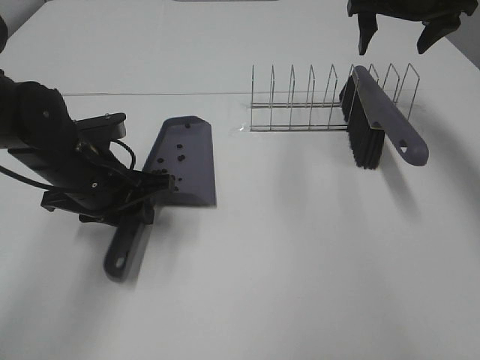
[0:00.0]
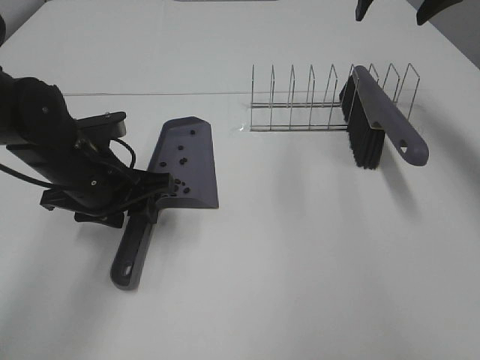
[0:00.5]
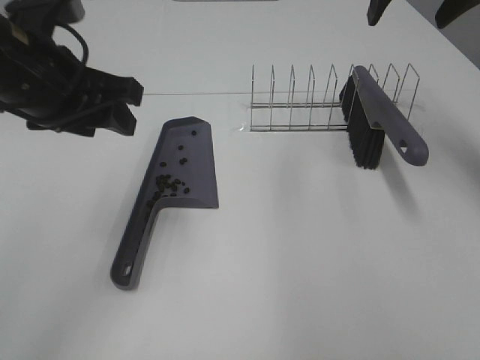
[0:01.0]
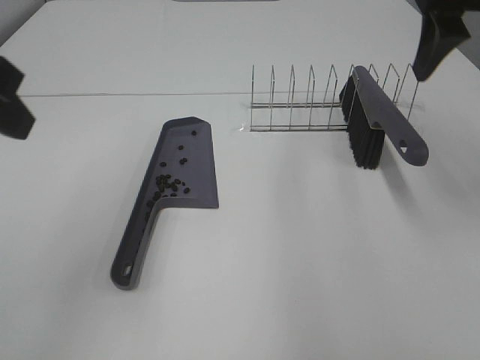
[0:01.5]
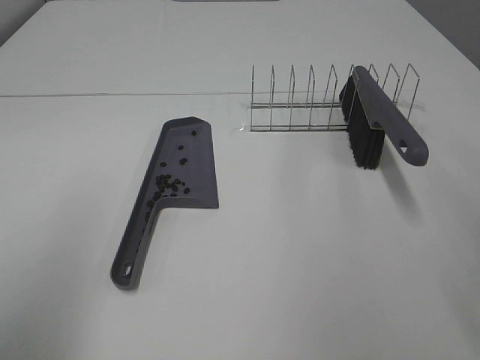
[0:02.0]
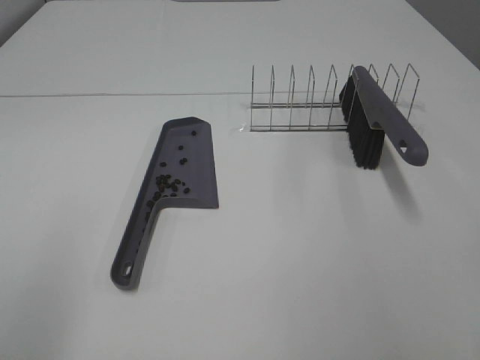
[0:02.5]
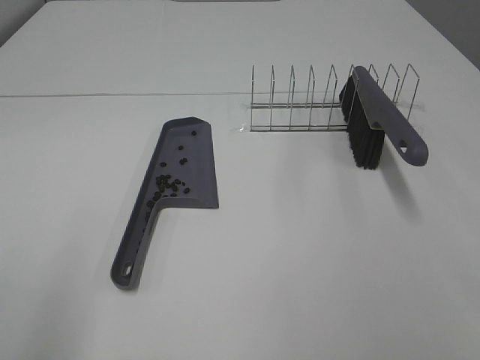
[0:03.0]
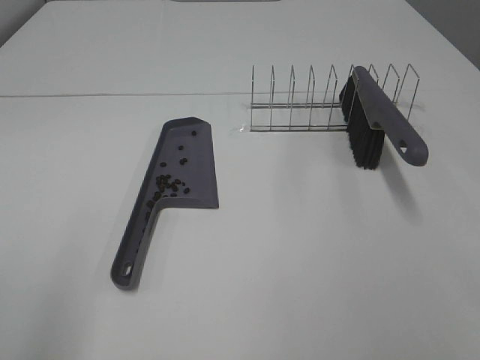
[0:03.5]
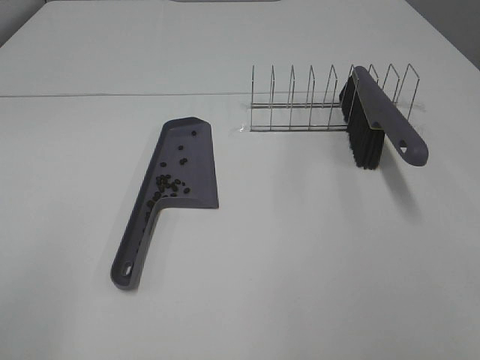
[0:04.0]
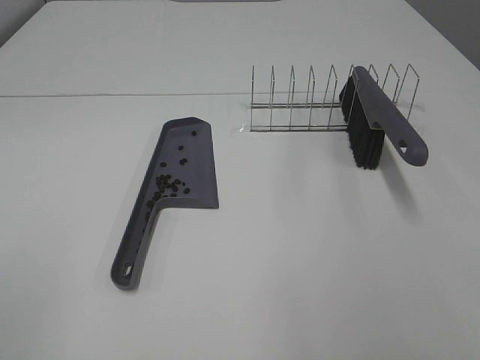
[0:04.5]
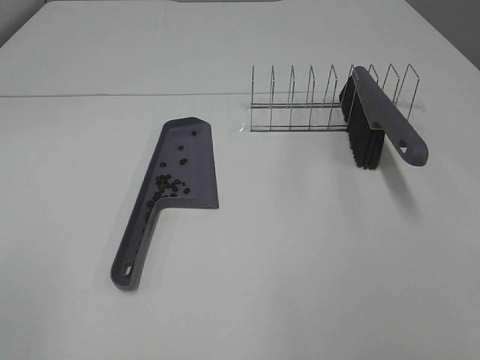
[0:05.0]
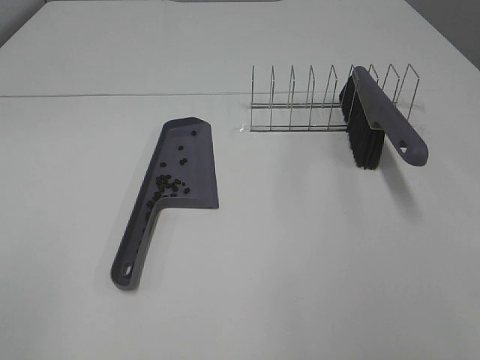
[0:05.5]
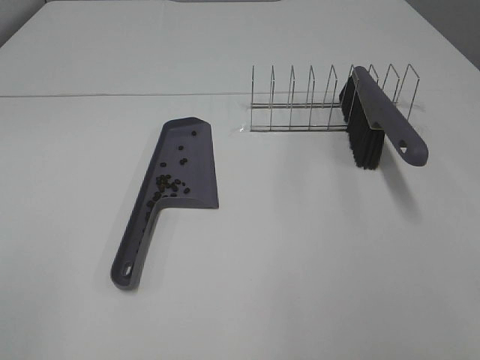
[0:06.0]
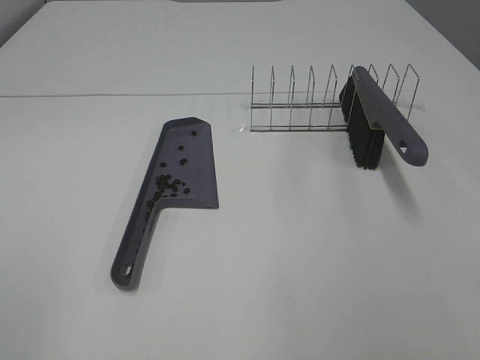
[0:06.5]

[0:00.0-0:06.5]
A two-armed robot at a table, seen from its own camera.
Task of the whole recording: Sweep Coffee Bean.
0:00.0 to 0:02.0: The right gripper goes some 30 cm backward. The left gripper shifts roughly 30 cm backward, upward and to the left.
0:02.0 to 0:04.5: The left gripper is displaced backward by approximately 10 cm.

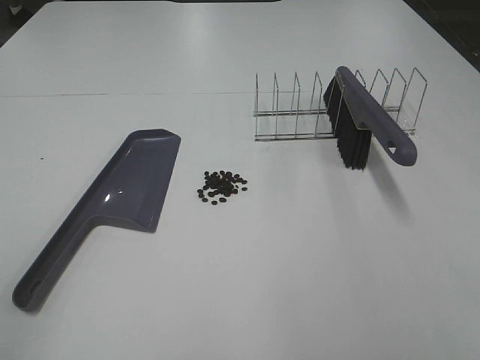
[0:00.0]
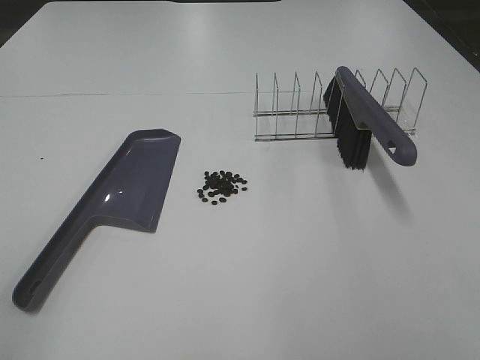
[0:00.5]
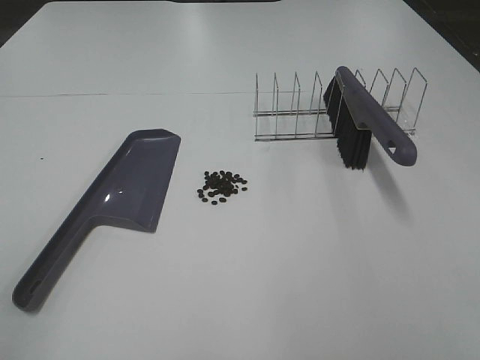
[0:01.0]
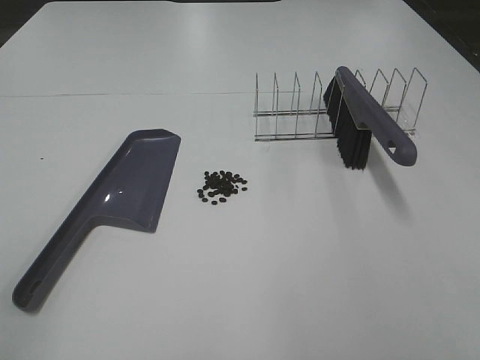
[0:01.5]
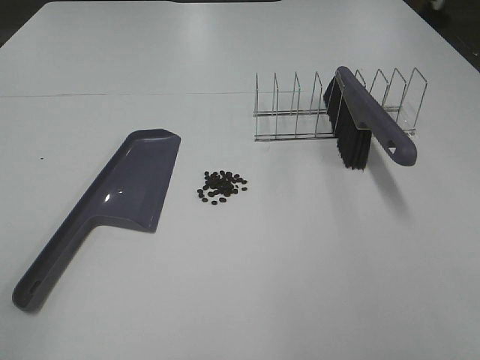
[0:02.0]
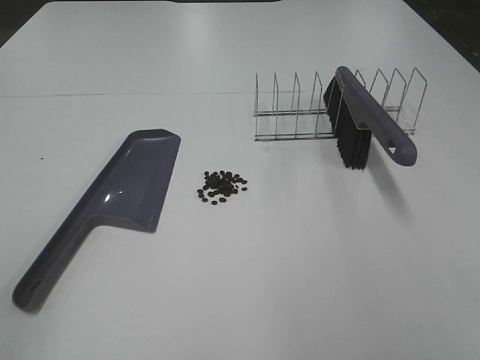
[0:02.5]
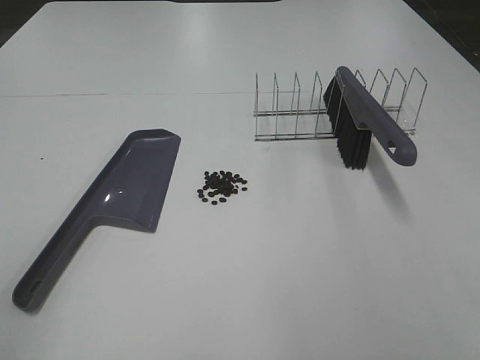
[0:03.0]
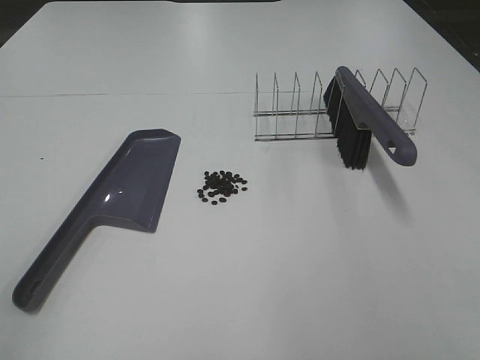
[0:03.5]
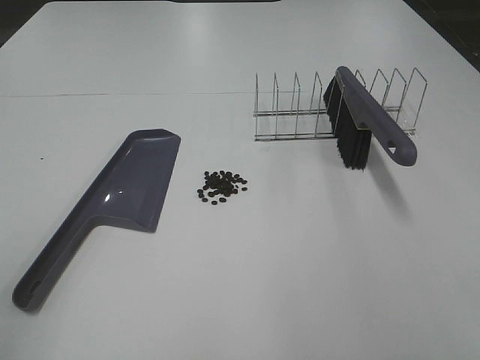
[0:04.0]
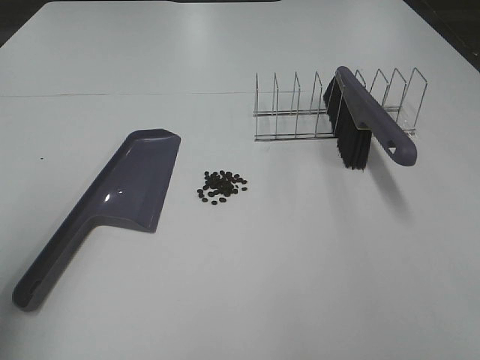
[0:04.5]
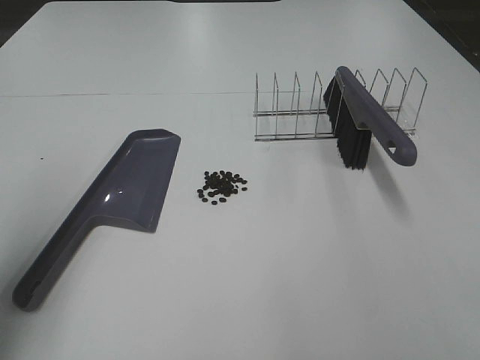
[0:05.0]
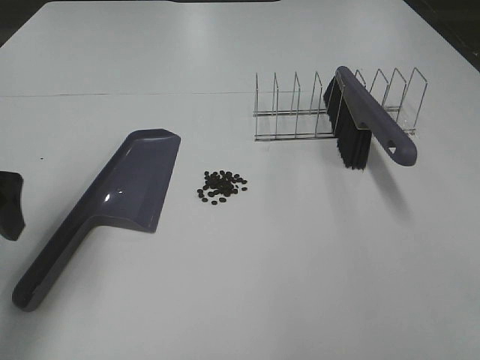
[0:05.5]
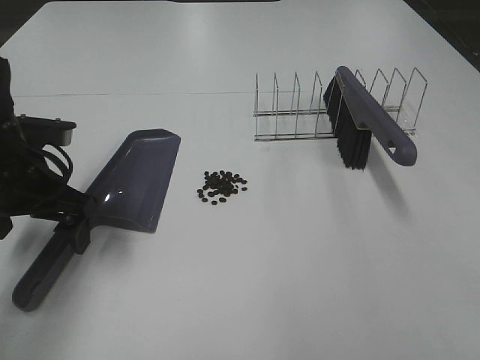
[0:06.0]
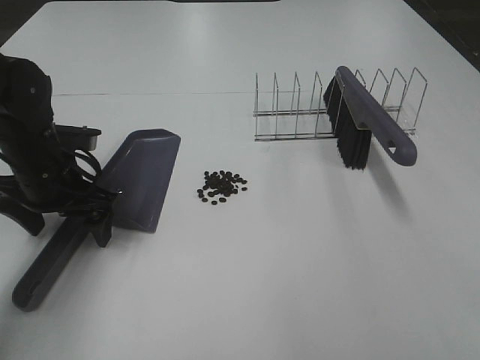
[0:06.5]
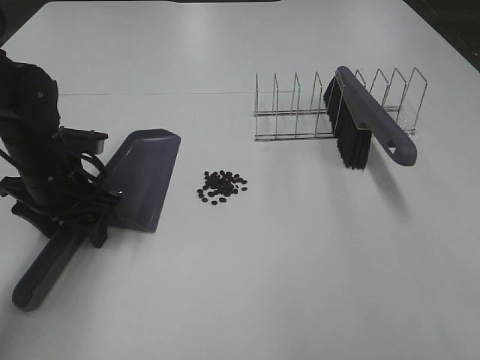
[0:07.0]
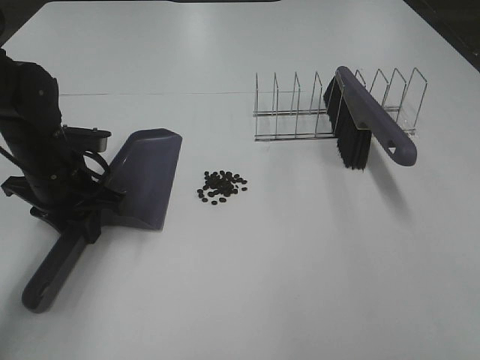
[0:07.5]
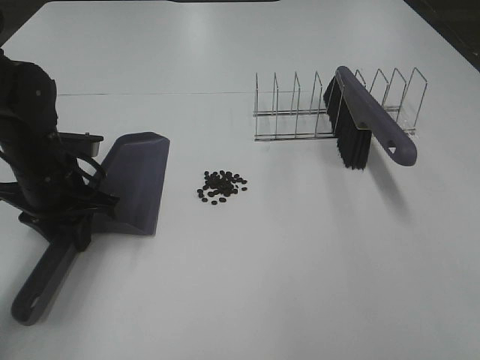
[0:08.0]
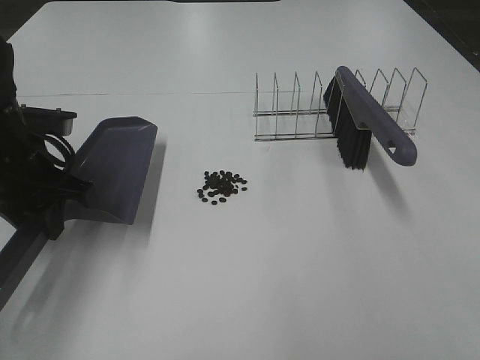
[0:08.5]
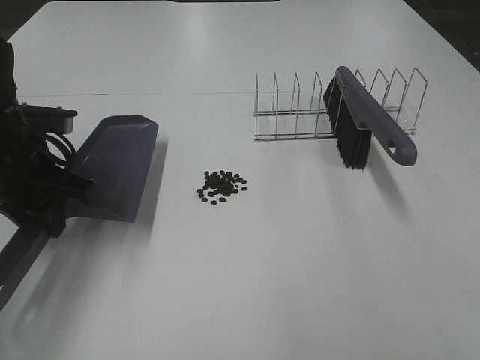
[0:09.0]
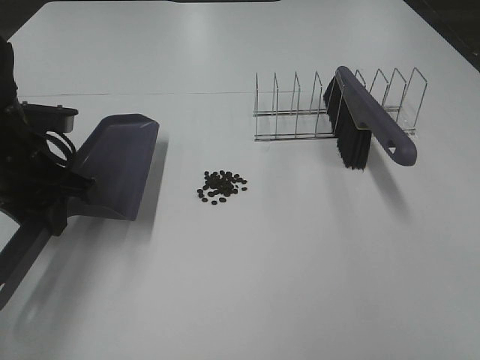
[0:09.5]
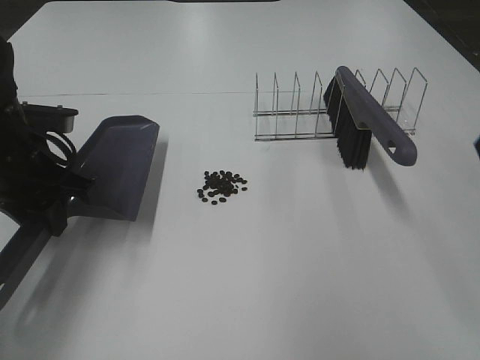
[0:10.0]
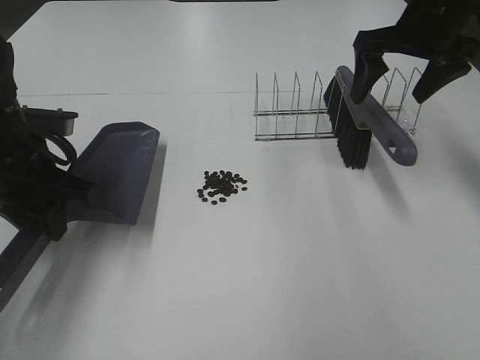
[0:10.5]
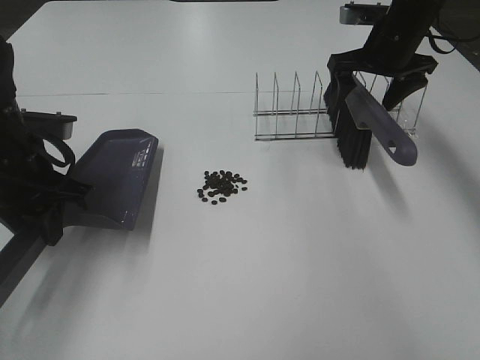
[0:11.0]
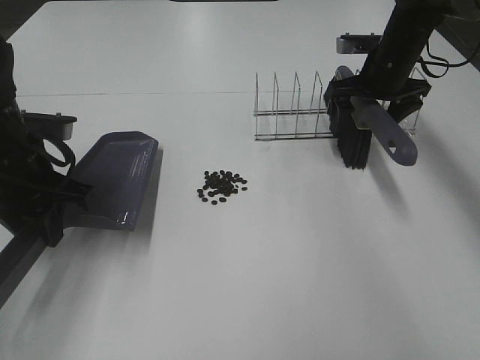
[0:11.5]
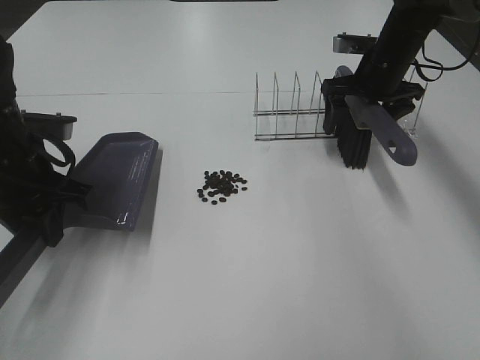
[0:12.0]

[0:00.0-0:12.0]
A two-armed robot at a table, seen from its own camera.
Task of the whole recording: Sweep Coffee Bean.
Step, 0:00.0 to 0:07.0: Left hand: grab the dustpan.
0:00.0 to 0:02.0: Neither gripper changes place.
0:04.0 to 0:06.0: The left gripper travels forward and downward by approximately 30 cm.
0:06.0 to 0:08.0: The left gripper closes its fingers.
0:08.0 to 0:10.0: The left gripper shifts by roughly 5 cm.
0:10.0 to 0:12.0: The right gripper shifts approximately 35 cm forward and downward.

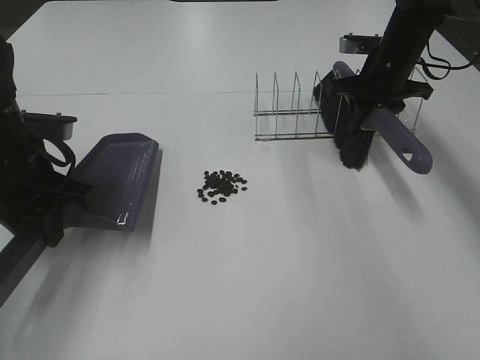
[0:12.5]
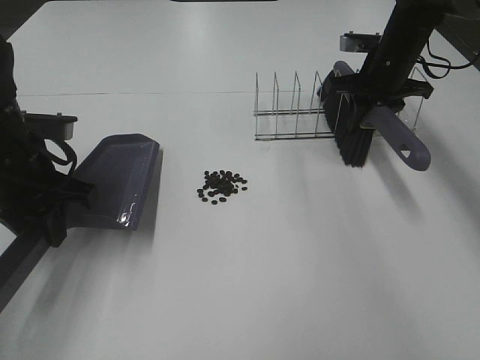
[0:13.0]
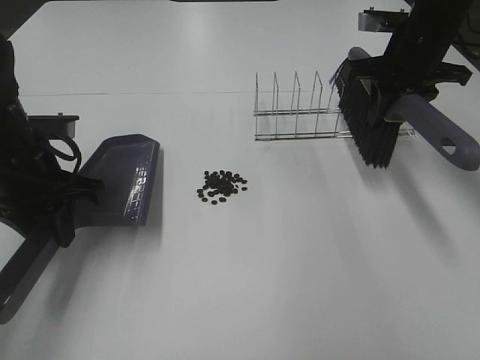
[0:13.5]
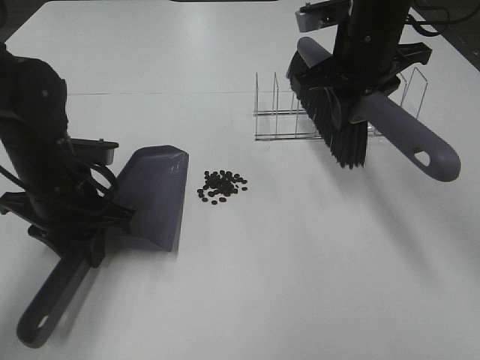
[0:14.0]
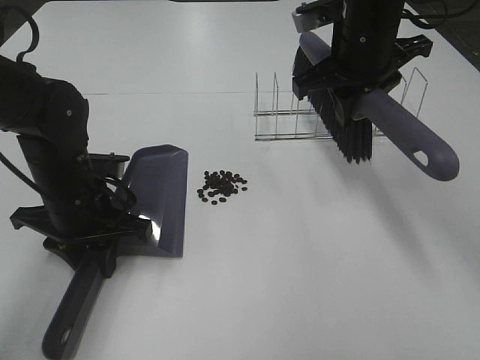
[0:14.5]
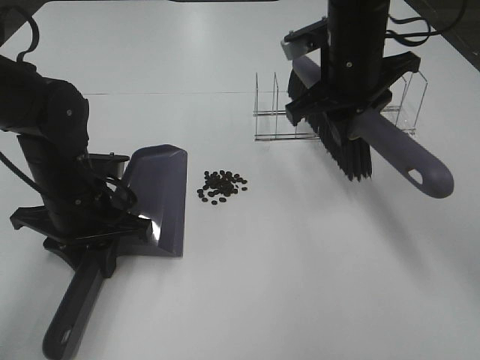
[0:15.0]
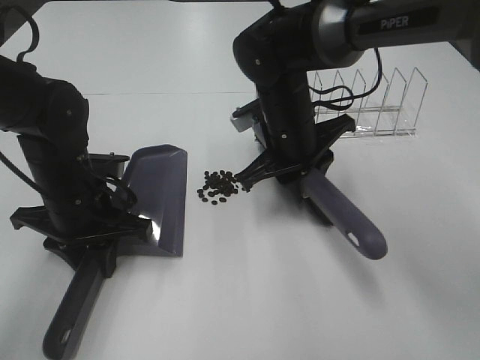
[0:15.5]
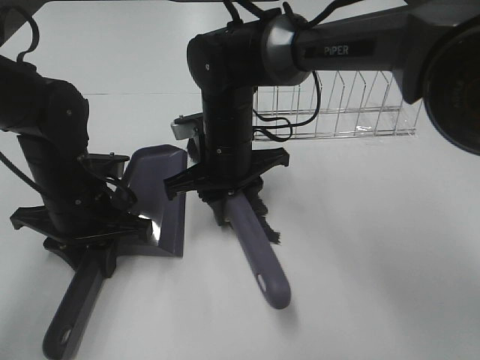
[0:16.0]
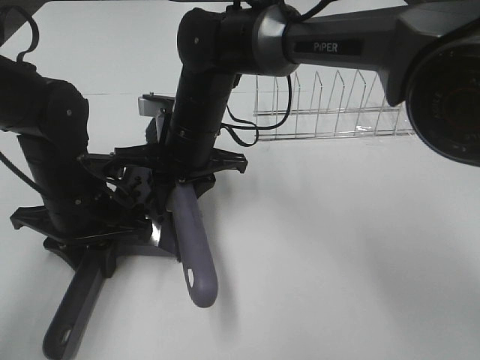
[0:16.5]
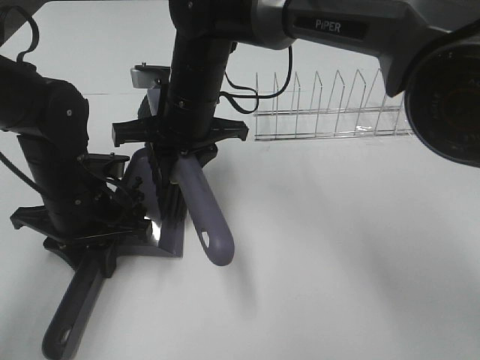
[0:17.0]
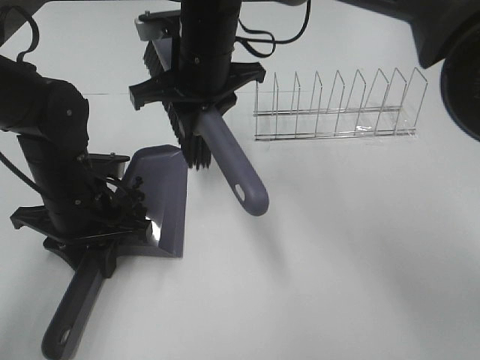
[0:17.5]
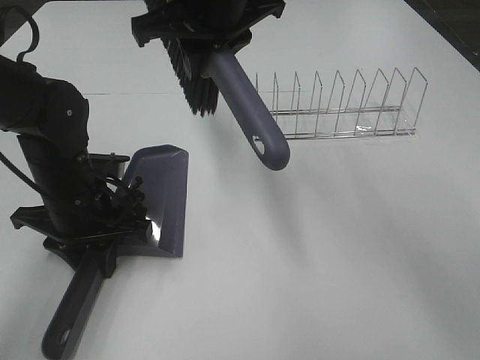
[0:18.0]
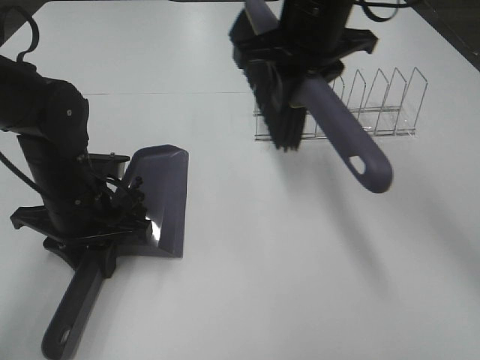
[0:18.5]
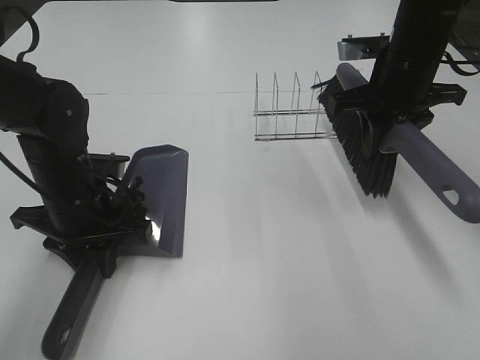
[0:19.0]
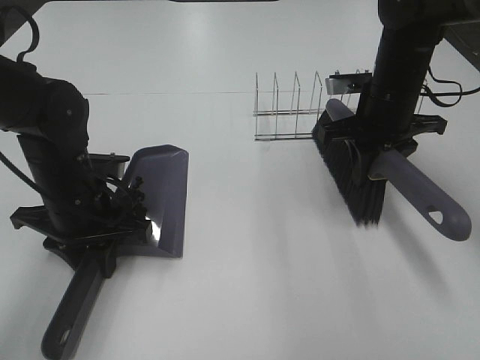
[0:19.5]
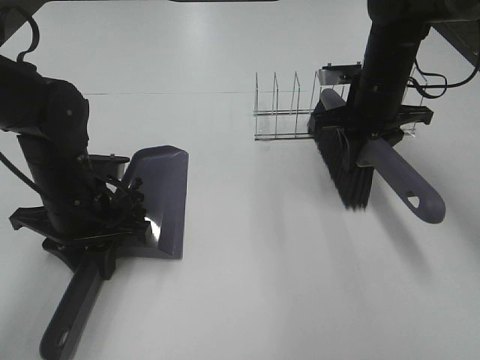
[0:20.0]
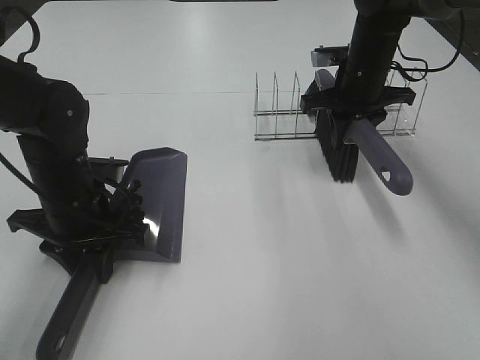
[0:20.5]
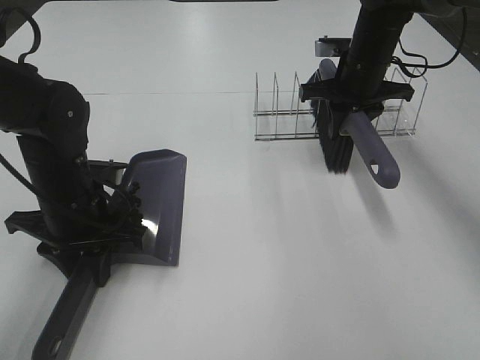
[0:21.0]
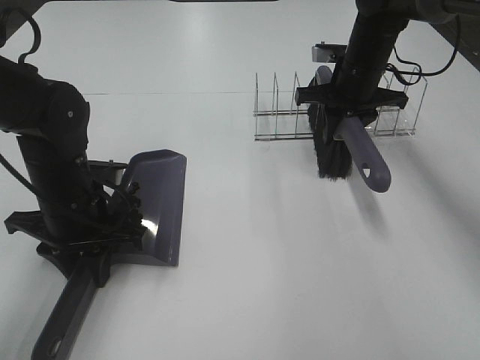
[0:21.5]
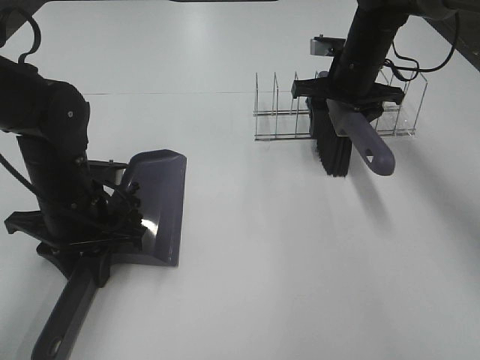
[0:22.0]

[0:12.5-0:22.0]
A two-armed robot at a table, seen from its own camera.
Task of the whole recording: Sweep Coffee Bean.
Step, 0:12.5 to 0:17.0: Right hand:sweep the coffee beans into the dustpan.
0:12.5 to 0:14.5: The left gripper shifts some 10 cm downward and to the right; the right gripper is displaced backward, to the left and upward by about 15 cm.
0:14.5 to 0:16.5: The right gripper goes approximately 20 cm to the left and downward.
0:16.5 to 0:18.0: The right gripper goes some 15 cm upward.
0:18.0 to 0:20.0: The right gripper goes roughly 25 cm to the right and downward.
0:20.0 to 0:22.0: The right gripper shifts approximately 5 cm forward, and opens its fingers.
